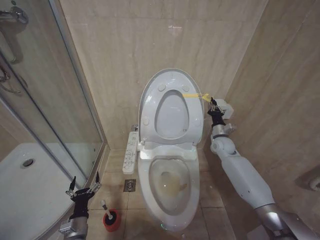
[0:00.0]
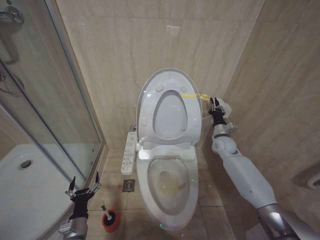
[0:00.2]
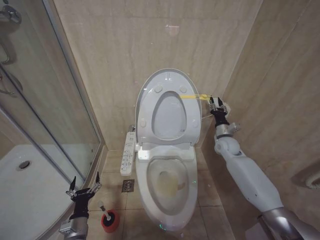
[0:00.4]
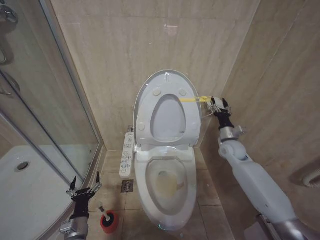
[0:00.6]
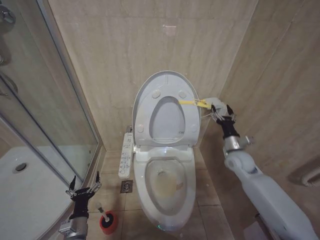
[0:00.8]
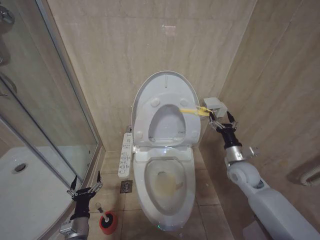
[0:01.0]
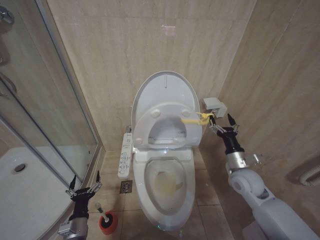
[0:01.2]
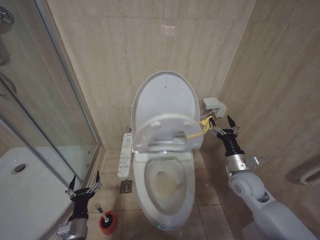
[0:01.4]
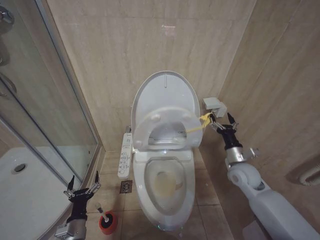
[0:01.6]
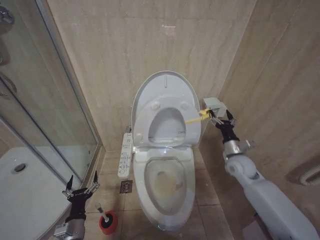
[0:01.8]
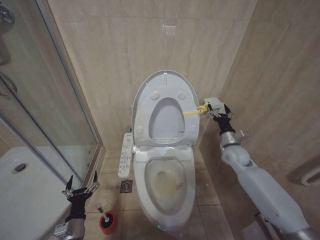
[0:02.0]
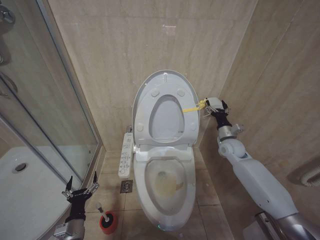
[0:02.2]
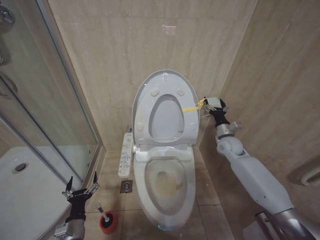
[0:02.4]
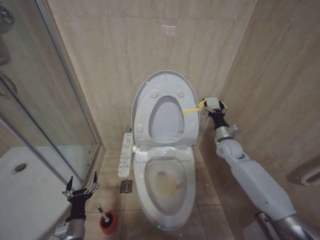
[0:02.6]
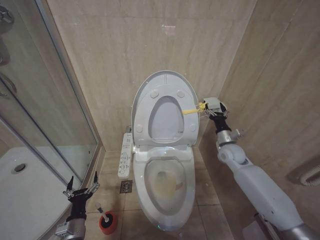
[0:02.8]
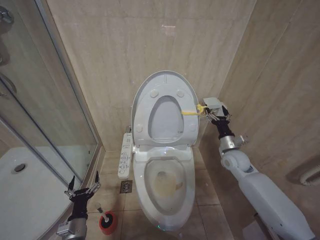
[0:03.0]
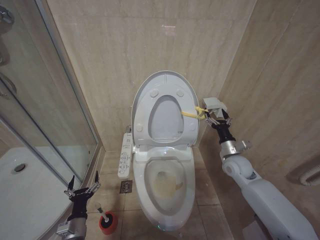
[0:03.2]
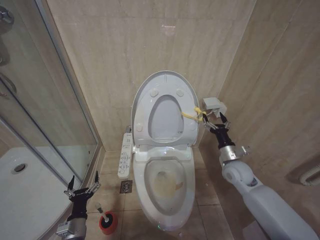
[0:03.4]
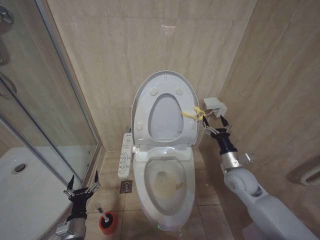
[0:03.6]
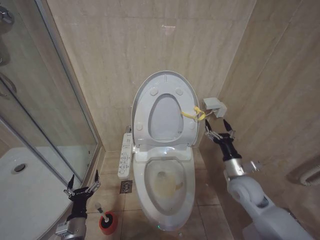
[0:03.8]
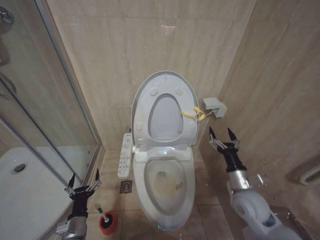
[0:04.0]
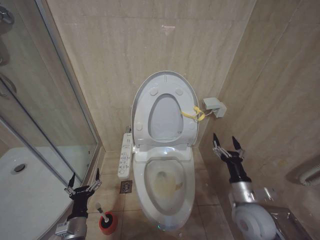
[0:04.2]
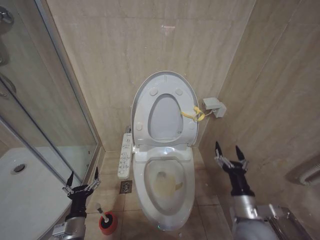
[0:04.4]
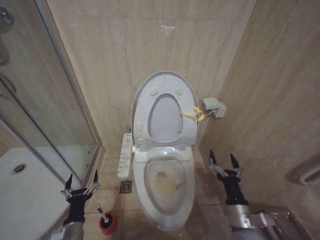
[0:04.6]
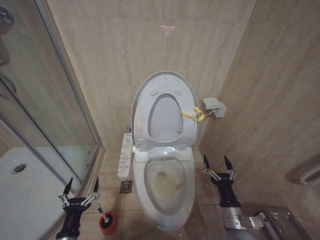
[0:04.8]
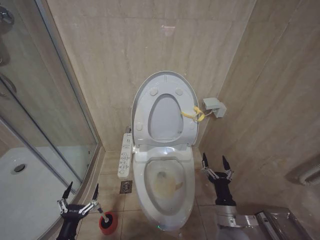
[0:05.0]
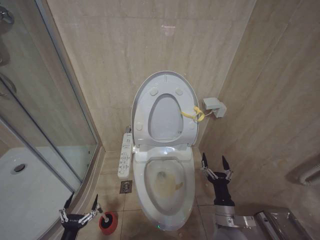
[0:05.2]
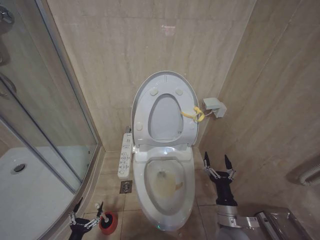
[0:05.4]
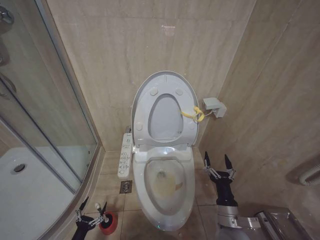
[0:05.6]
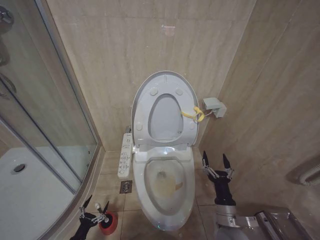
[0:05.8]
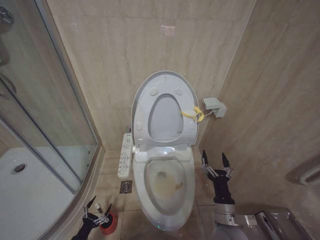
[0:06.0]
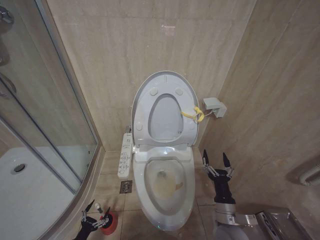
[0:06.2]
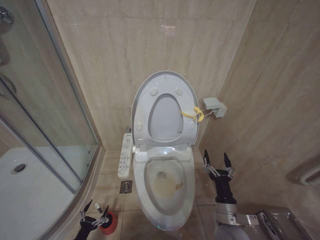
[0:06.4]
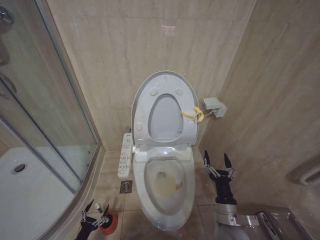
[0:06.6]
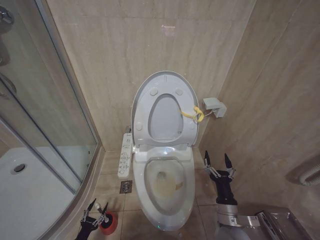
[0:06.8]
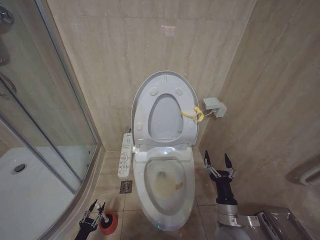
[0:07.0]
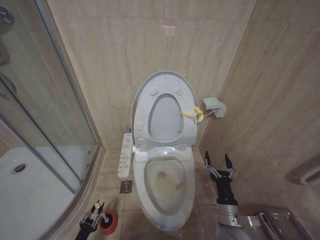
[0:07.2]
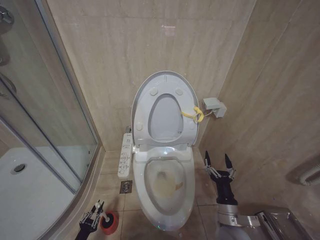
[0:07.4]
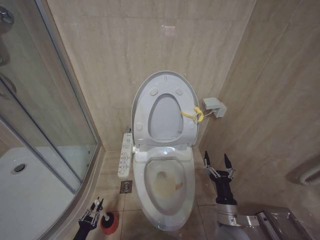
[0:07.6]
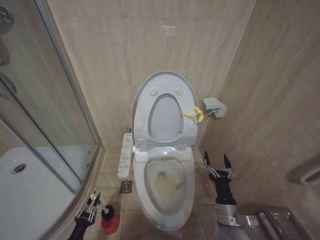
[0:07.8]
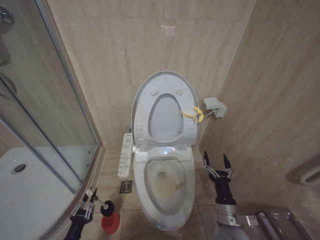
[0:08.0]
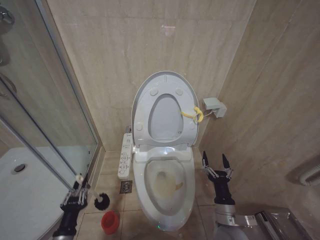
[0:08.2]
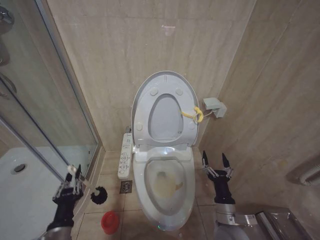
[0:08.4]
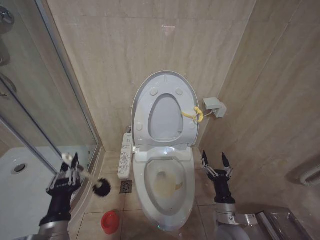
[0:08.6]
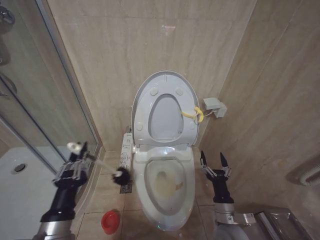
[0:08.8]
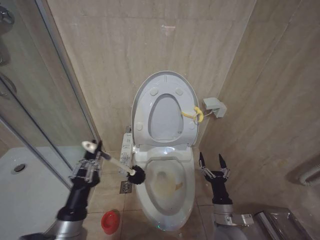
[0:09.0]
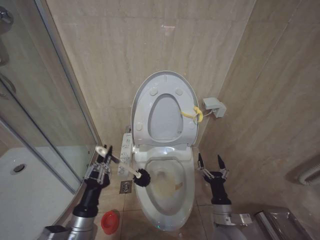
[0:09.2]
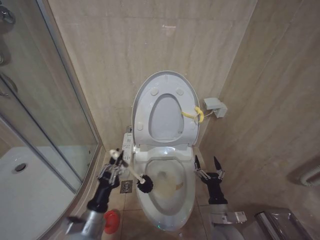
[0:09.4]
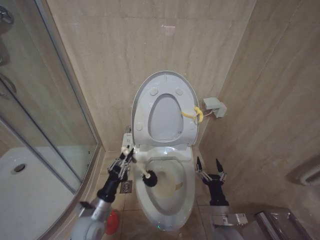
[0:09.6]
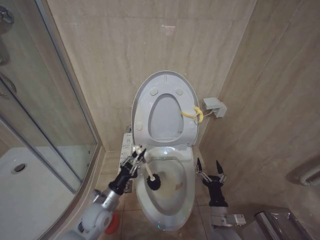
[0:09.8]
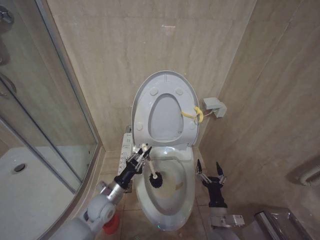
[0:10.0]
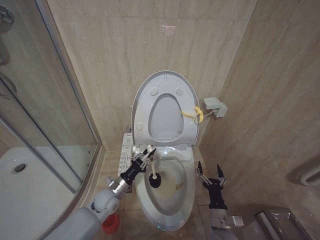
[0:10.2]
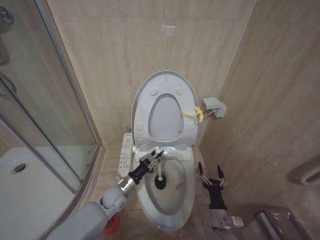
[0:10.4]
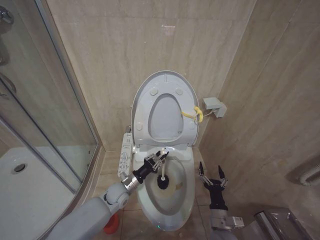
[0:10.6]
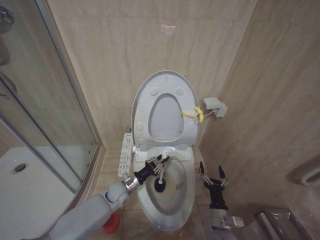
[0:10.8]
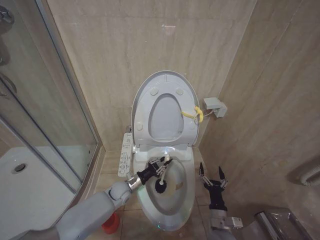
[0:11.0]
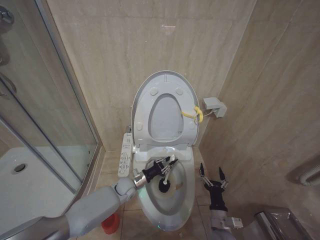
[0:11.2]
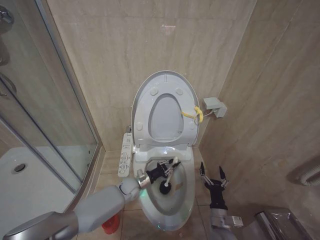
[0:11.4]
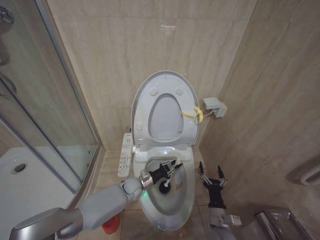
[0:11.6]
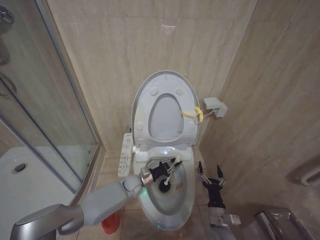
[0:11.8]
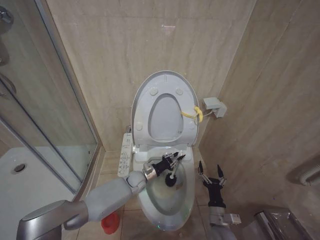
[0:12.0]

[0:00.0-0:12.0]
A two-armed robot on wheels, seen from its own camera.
Task of the whole recording: Open the toilet lid, clean the toilet bowl with a toilet brush, close the toilet lid, and flush.
0:00.0 to 0:01.6: The right gripper goes roughly 15 cm backward, and opens.
0:01.6 to 0:03.0: The right gripper moves forward, approximately 10 cm.
0:03.0 to 0:04.4: The right gripper goes roughly 20 cm backward.
0:04.4 to 0:06.0: The right gripper goes about 10 cm downward and to the left, while the left gripper travels downward and to the left by some 25 cm.
0:06.0 to 0:07.6: The left gripper closes up.
0:07.6 to 0:09.0: The left gripper is displaced upward and to the right by approximately 40 cm.
0:09.0 to 0:10.4: The left gripper is displaced forward and downward by about 30 cm; the right gripper shifts roughly 5 cm downward.
0:10.4 to 0:12.0: The left gripper travels to the right and forward by approximately 15 cm.

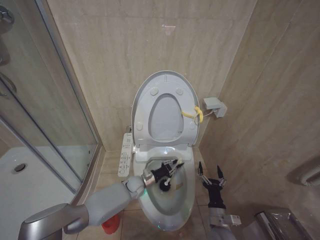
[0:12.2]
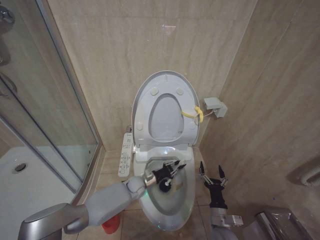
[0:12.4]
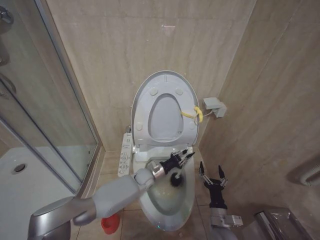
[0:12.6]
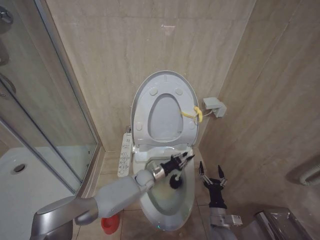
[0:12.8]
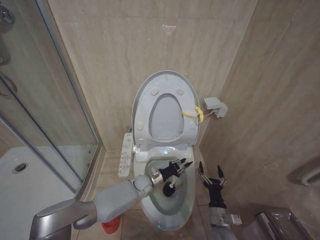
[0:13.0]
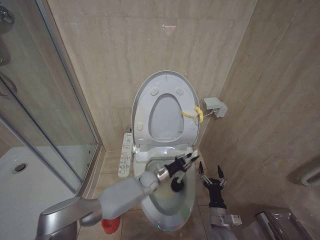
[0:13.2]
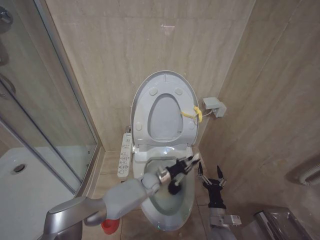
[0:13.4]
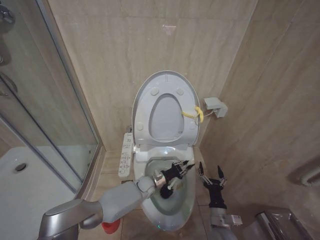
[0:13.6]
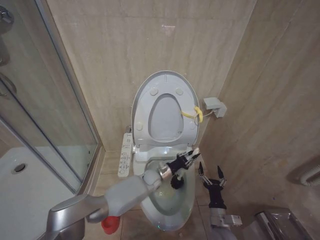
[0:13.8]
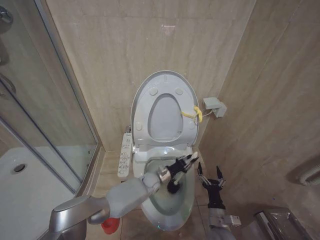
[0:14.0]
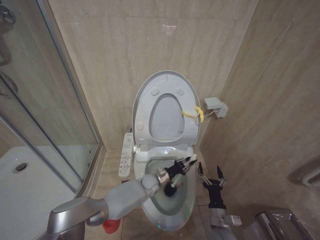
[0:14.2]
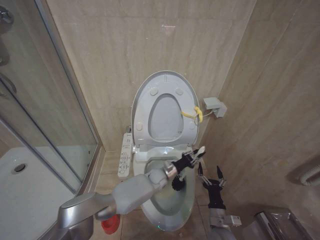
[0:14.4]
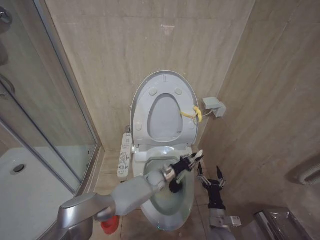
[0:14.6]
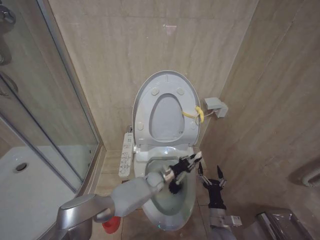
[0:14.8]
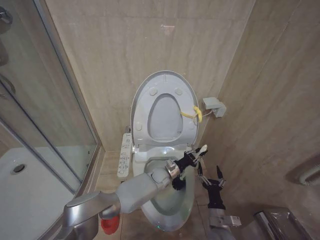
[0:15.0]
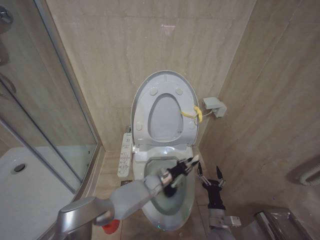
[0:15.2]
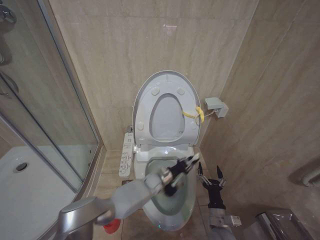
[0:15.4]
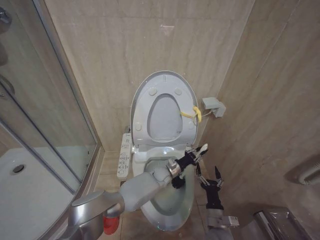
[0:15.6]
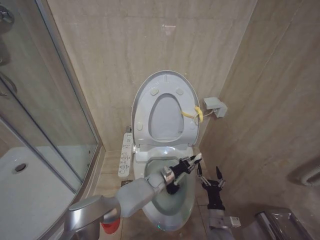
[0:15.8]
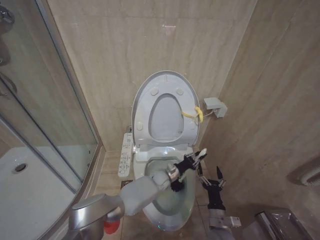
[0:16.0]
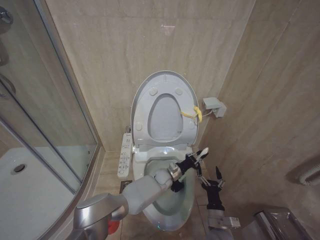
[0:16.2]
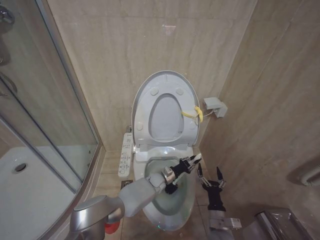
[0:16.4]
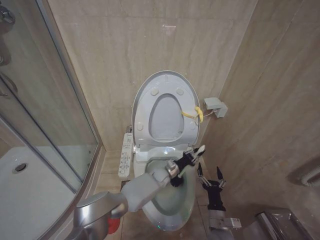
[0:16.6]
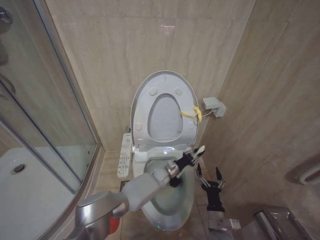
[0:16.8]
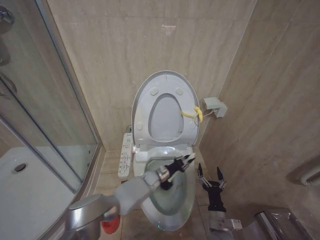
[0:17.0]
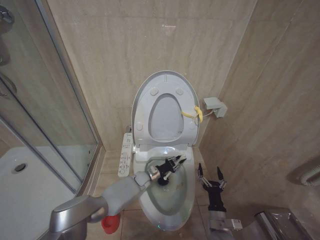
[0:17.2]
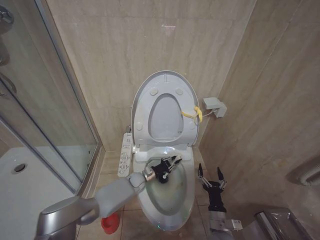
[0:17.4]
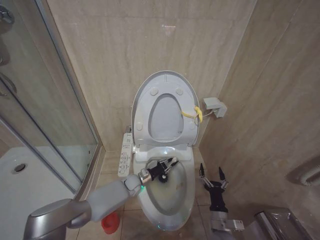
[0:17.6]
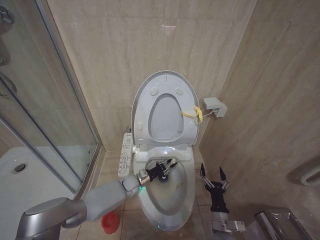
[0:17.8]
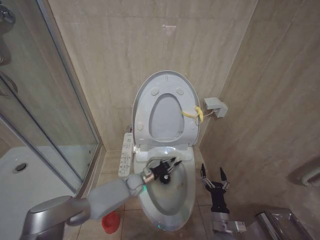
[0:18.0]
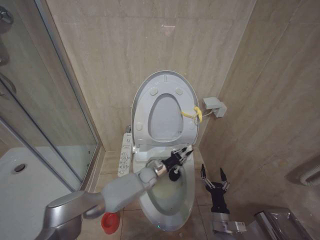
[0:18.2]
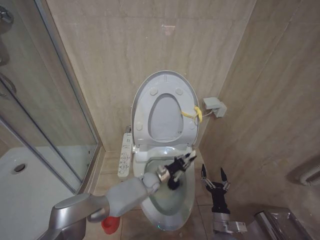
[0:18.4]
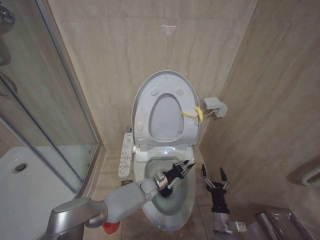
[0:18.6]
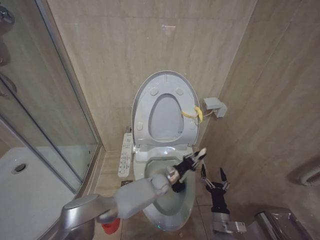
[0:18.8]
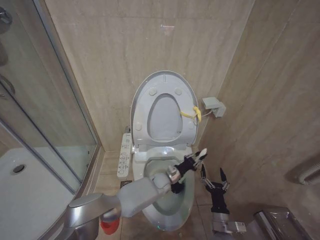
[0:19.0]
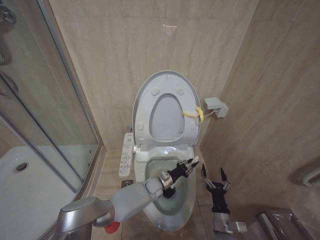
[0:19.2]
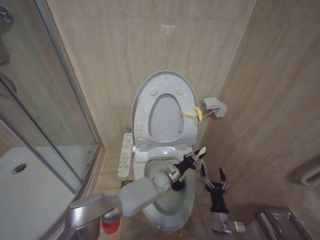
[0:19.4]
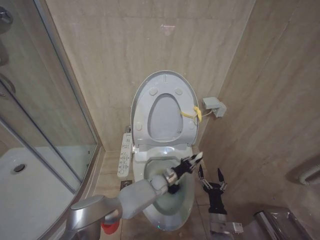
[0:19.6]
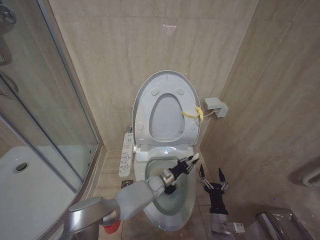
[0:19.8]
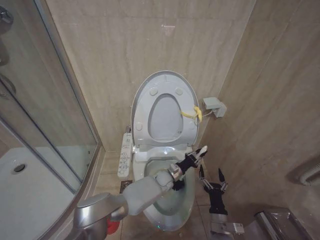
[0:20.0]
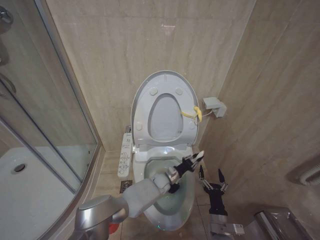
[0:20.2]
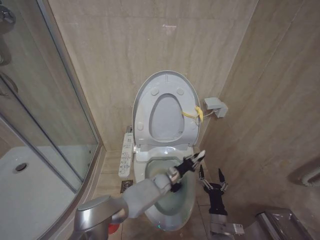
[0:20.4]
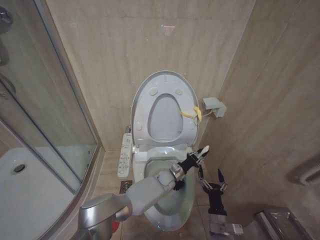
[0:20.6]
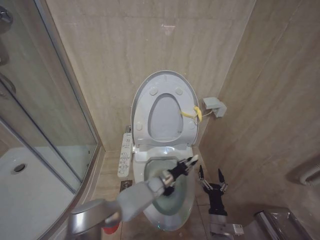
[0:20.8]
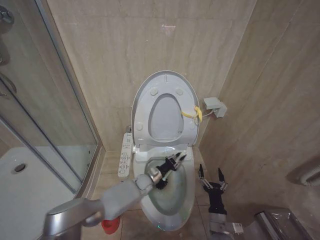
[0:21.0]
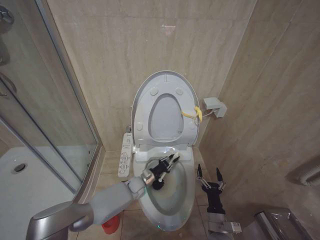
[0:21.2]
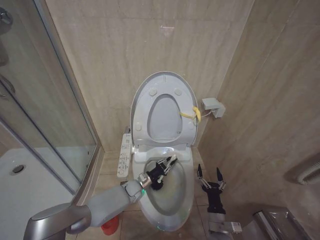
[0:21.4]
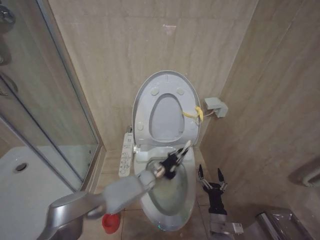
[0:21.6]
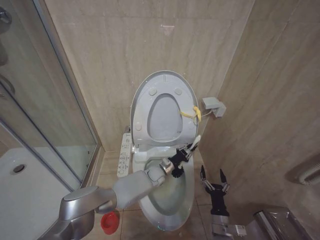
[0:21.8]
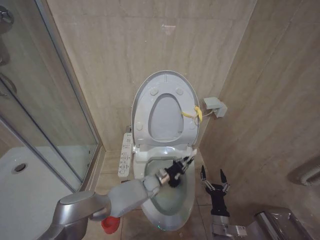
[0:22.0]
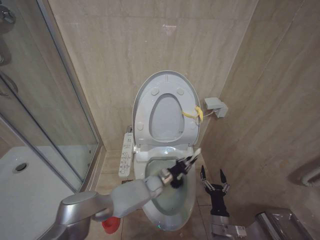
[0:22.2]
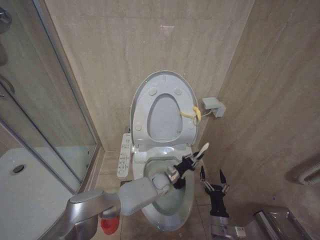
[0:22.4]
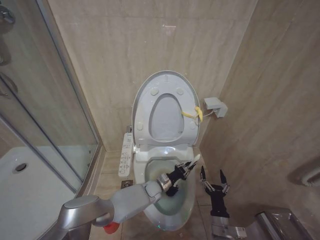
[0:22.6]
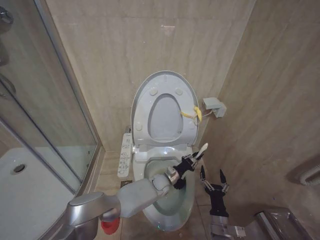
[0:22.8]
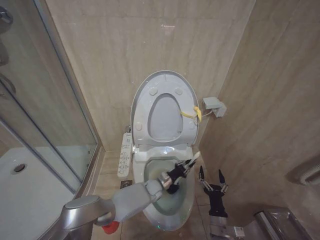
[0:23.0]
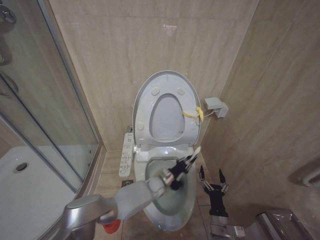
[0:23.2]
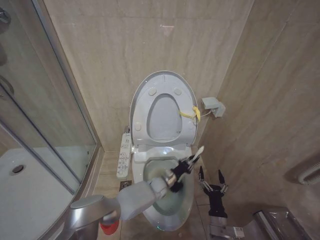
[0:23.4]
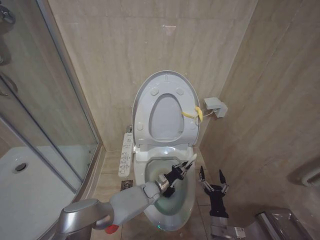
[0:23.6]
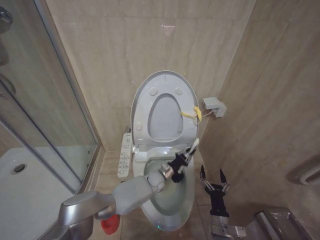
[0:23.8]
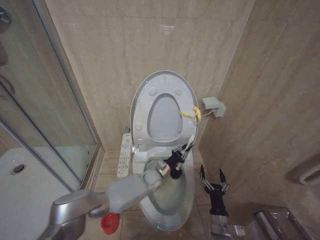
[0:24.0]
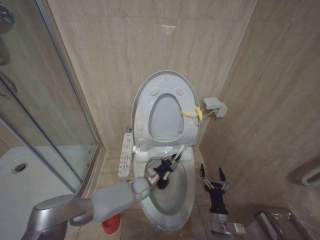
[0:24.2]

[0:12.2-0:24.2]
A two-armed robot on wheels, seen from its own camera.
Task of the whole recording: Open the toilet lid, clean the toilet bowl with a toilet brush, close the toilet lid, and flush.
0:12.2 to 0:13.8: The left gripper travels to the right by approximately 5 cm.
0:13.8 to 0:15.2: The grippers move only a little.
0:15.2 to 0:16.6: The grippers move only a little.
0:16.6 to 0:18.2: The left gripper goes approximately 5 cm to the left.
0:18.2 to 0:19.8: The left gripper travels to the right by about 5 cm.
0:19.8 to 0:21.2: The left gripper is displaced to the left by some 10 cm.
0:21.2 to 0:22.6: The left gripper moves to the right, roughly 10 cm.
0:22.6 to 0:24.2: The left gripper moves some 5 cm.
